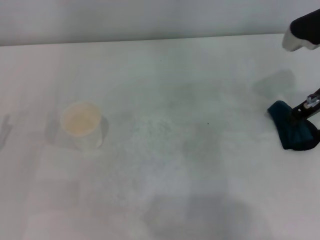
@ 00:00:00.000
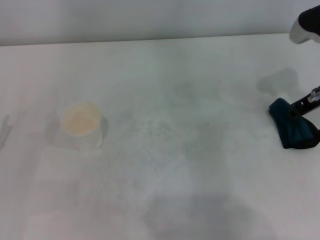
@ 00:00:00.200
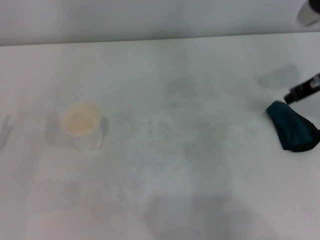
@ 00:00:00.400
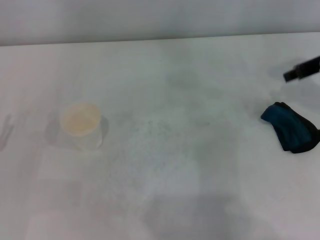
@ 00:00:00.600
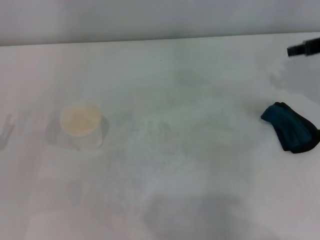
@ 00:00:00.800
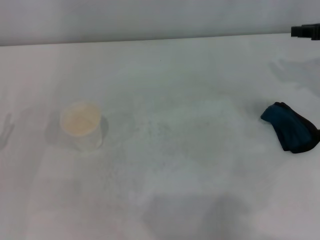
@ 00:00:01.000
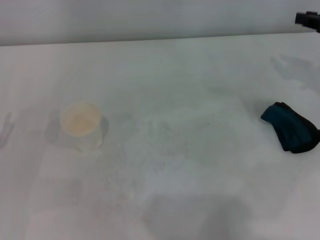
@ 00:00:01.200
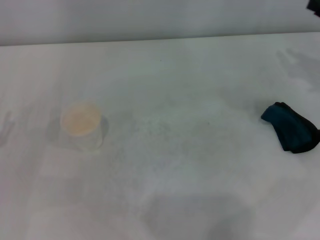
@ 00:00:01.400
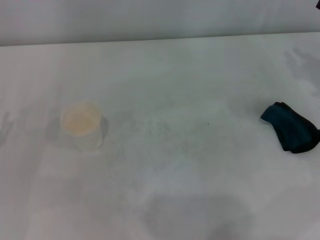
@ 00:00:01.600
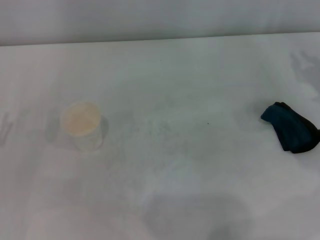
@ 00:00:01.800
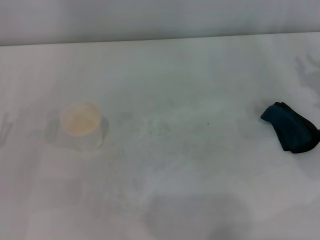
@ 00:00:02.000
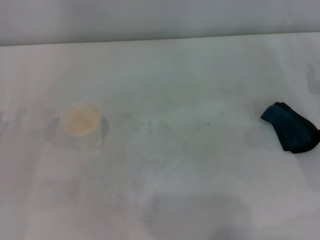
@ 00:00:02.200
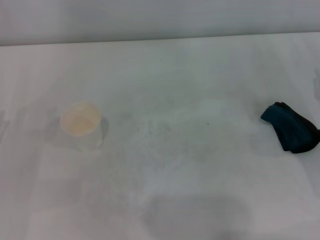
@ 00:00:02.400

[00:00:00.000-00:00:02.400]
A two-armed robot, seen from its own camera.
00:00:00.000 to 00:00:01.200: The right gripper shifts roughly 10 cm to the right, and opens.

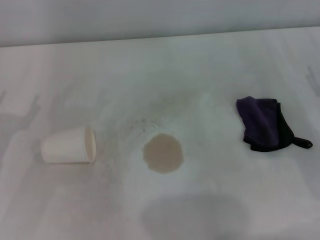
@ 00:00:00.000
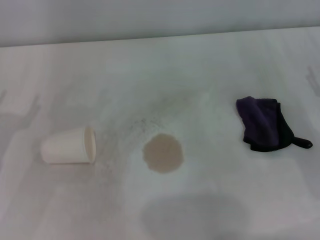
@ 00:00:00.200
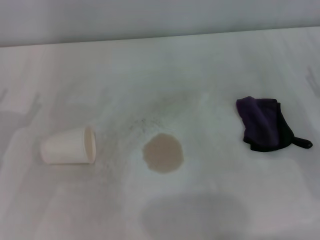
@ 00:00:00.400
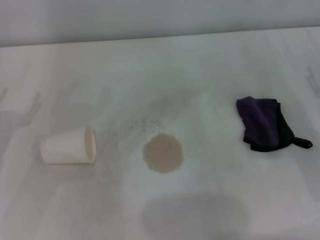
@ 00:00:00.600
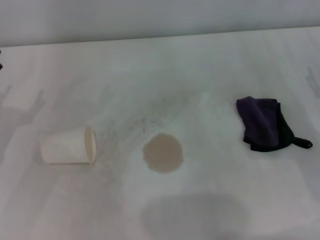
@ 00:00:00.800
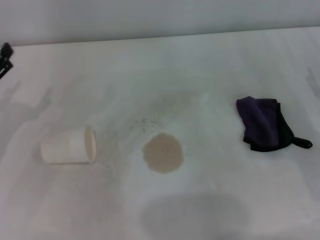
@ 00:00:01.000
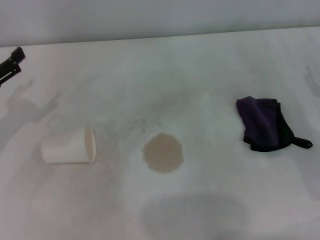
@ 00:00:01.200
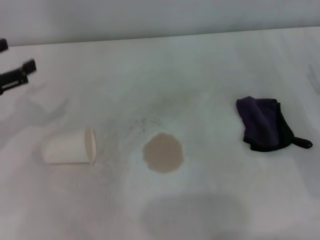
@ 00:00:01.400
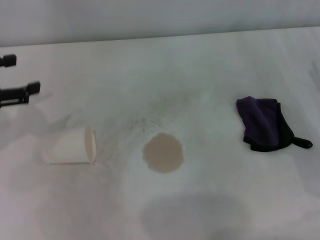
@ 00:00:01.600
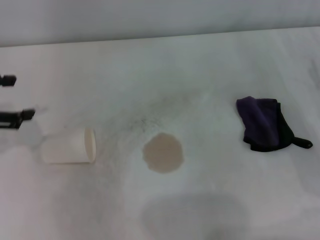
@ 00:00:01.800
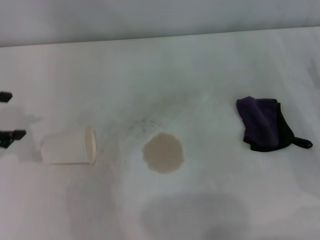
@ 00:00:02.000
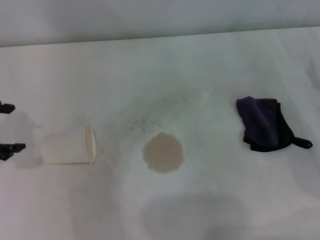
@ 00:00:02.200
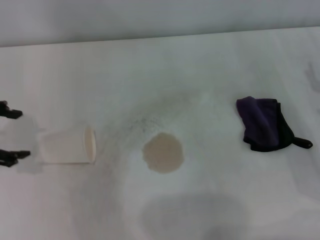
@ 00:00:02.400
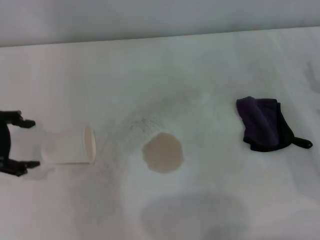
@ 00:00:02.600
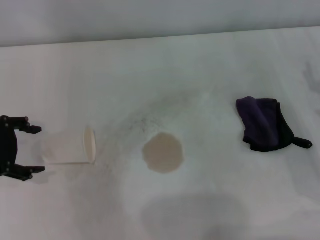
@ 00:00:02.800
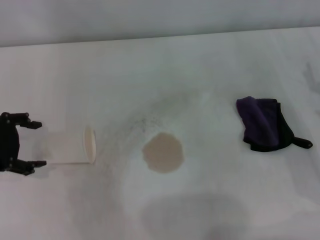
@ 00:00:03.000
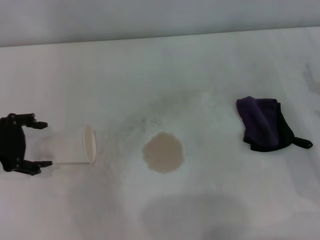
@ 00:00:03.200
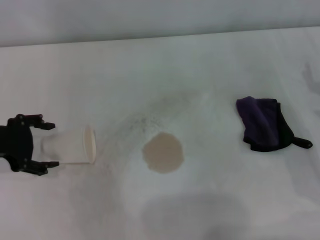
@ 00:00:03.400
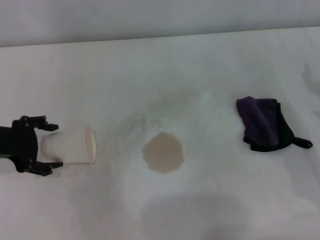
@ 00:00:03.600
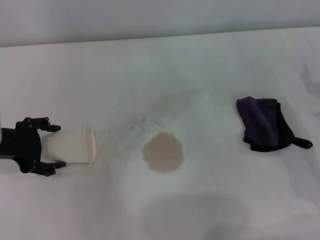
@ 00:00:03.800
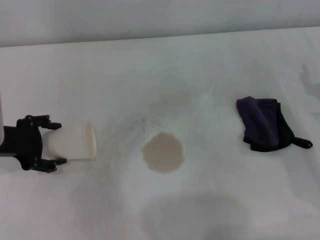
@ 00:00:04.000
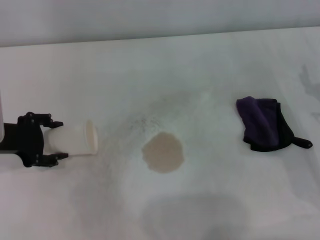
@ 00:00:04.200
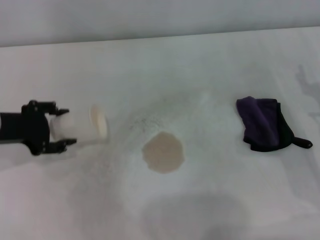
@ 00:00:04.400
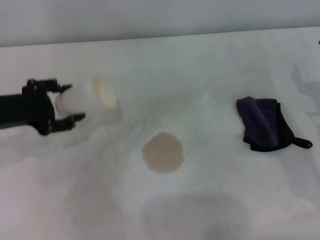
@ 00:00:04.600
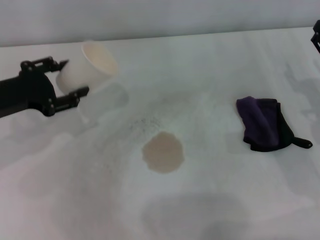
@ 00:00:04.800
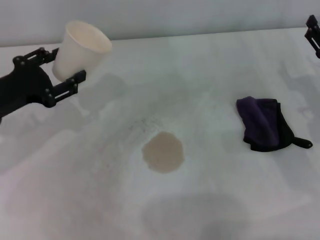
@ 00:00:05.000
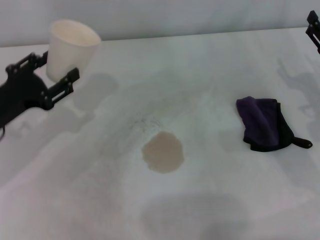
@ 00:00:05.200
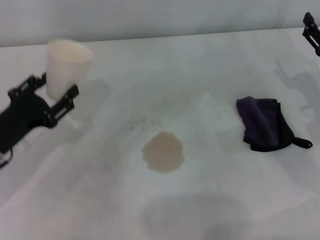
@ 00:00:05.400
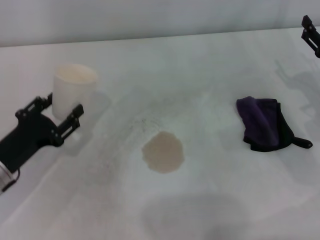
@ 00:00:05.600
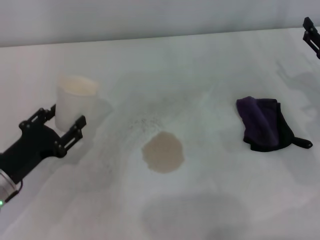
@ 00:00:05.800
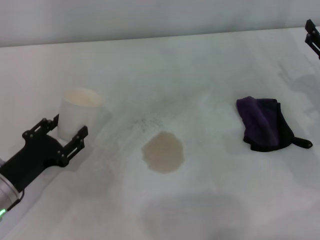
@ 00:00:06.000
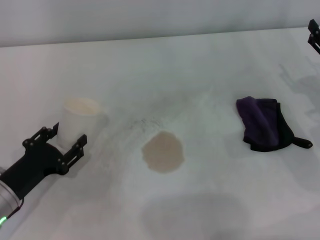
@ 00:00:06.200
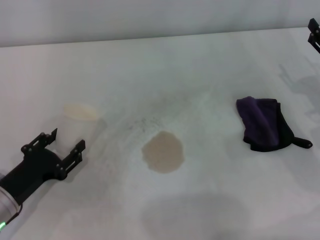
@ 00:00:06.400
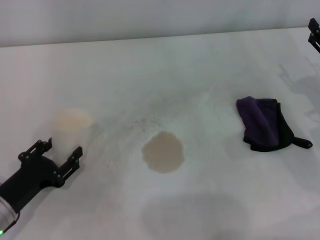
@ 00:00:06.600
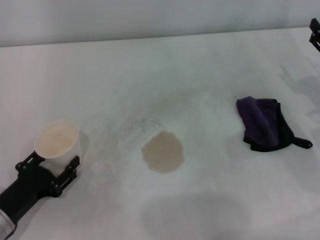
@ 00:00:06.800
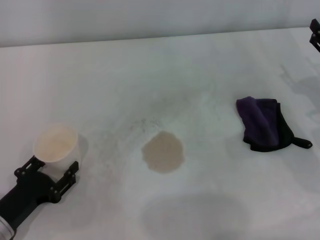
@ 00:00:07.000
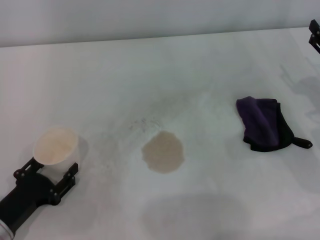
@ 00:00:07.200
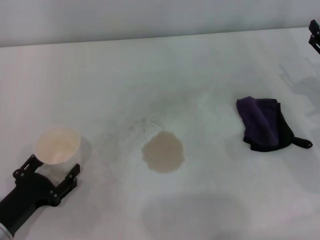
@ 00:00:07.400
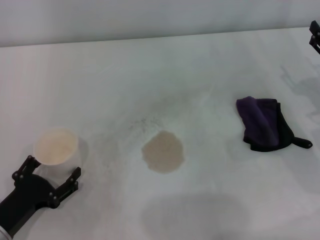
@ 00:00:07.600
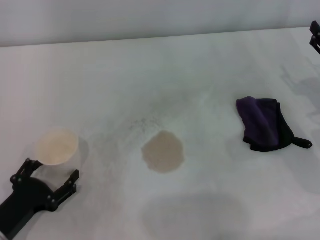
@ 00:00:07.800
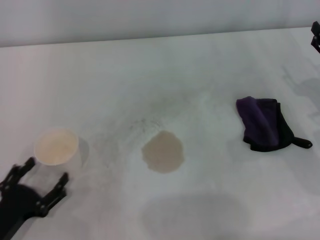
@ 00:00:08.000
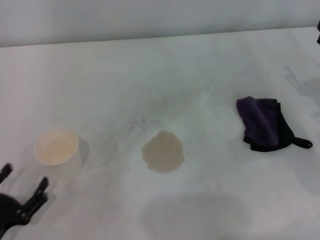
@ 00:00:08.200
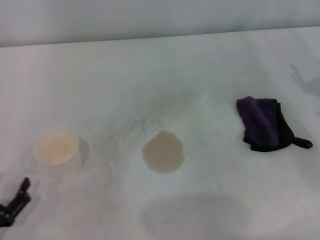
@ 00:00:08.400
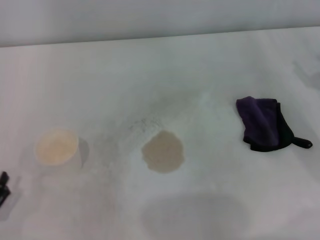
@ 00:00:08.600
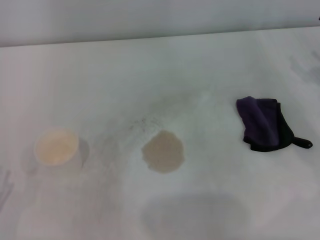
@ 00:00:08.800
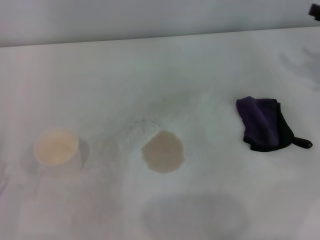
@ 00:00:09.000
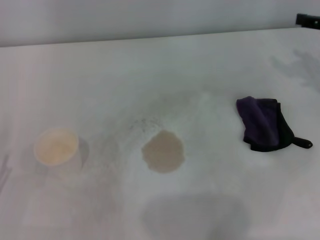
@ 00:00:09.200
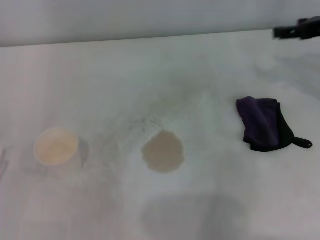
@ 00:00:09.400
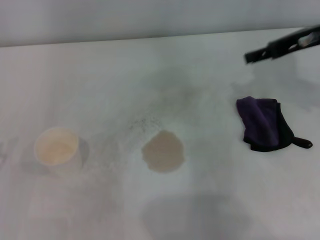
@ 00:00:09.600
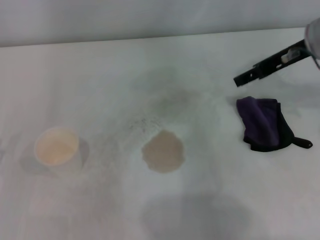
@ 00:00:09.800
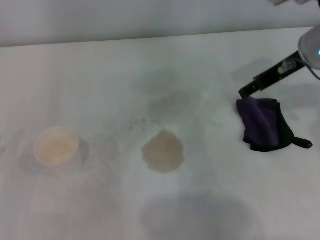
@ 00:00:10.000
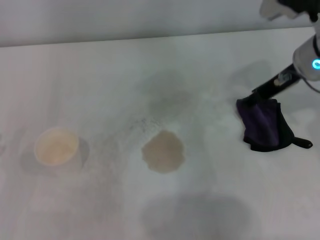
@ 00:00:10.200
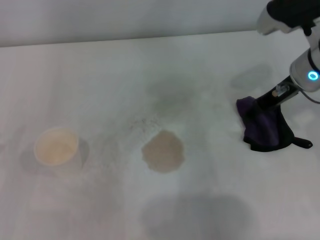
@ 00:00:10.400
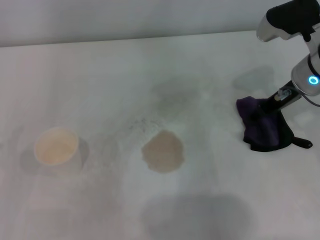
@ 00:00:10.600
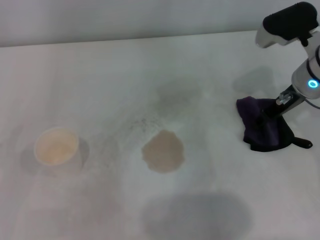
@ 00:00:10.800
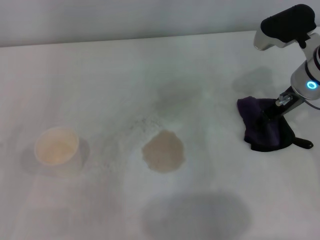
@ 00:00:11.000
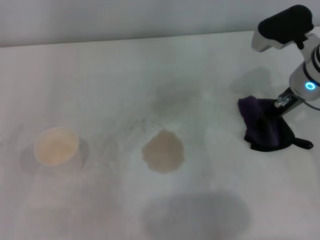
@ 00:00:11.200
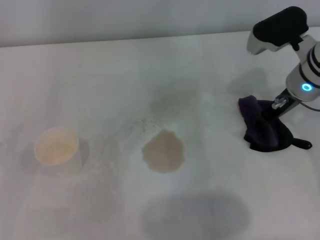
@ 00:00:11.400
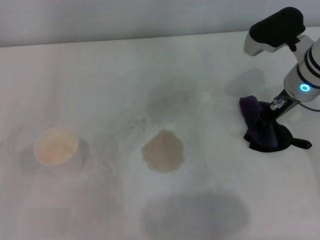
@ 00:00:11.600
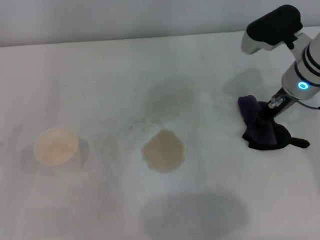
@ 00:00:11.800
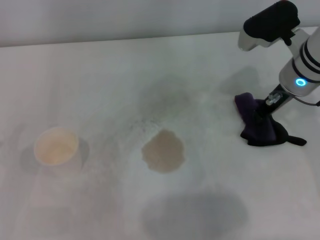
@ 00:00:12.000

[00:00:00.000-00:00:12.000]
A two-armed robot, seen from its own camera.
Step, 00:00:00.000 to 00:00:04.000: Grasp the paper cup with the left gripper.
Step, 00:00:04.200 to 00:00:07.600: Stand the paper cup upright with the left gripper.
Step, 00:00:07.800 to 00:00:11.600: Grasp the rag with the right gripper.
00:00:00.000 to 00:00:01.600: The left gripper shifts roughly 10 cm upward and forward.
00:00:03.000 to 00:00:04.400: The left gripper closes up.
00:00:04.400 to 00:00:06.000: The left gripper is displaced downward and backward by roughly 15 cm.
00:00:06.000 to 00:00:07.600: The left gripper is displaced backward by some 5 cm, and opens up.
00:00:07.600 to 00:00:09.000: The right gripper is displaced upward and forward by roughly 10 cm; the left gripper travels to the left by approximately 5 cm, and opens its fingers.
00:00:09.000 to 00:00:10.400: The right gripper moves to the left, approximately 15 cm.
00:00:10.400 to 00:00:12.000: The right gripper closes.

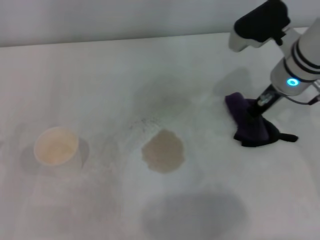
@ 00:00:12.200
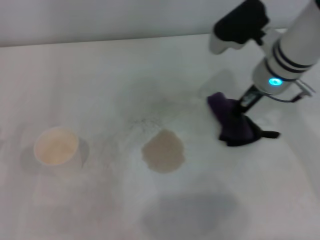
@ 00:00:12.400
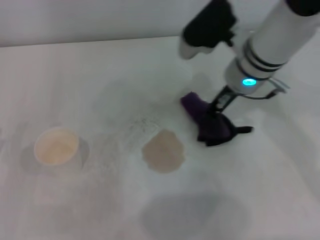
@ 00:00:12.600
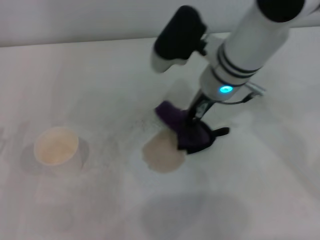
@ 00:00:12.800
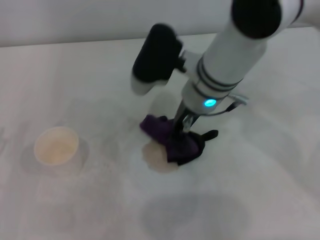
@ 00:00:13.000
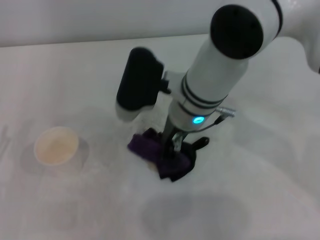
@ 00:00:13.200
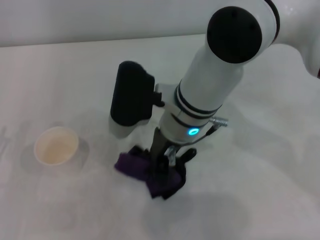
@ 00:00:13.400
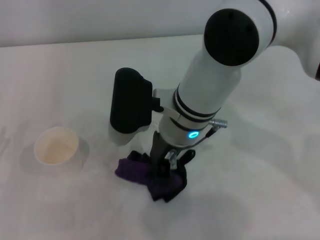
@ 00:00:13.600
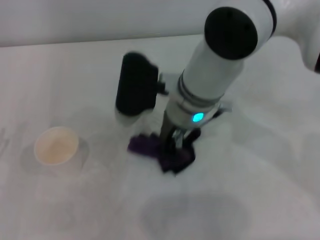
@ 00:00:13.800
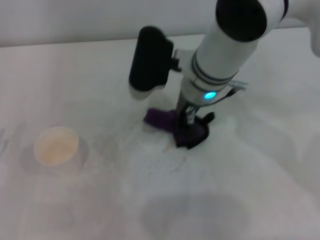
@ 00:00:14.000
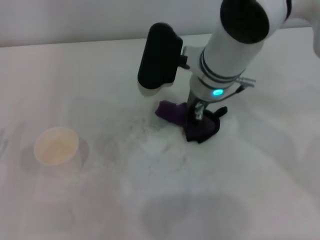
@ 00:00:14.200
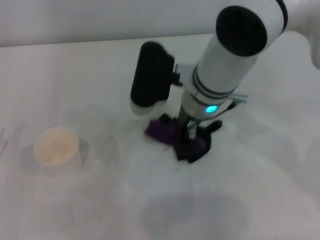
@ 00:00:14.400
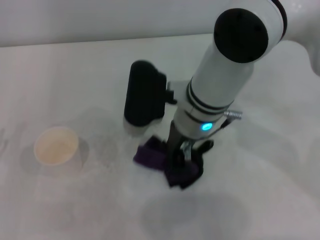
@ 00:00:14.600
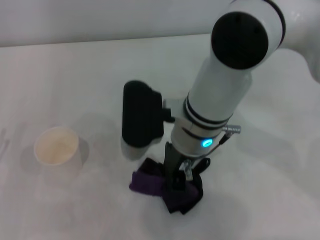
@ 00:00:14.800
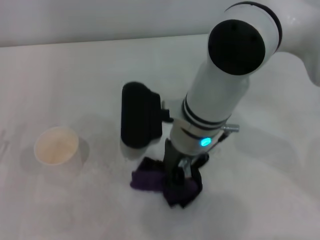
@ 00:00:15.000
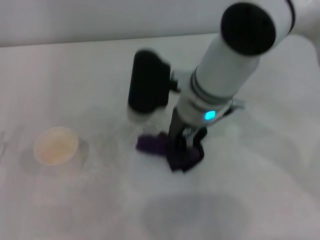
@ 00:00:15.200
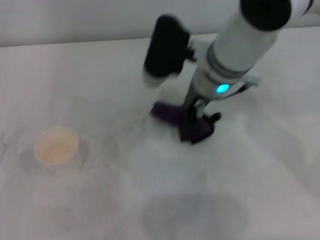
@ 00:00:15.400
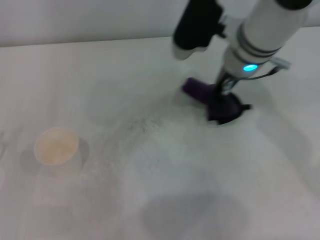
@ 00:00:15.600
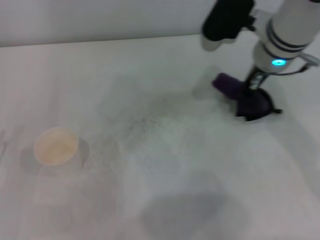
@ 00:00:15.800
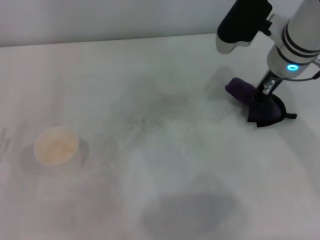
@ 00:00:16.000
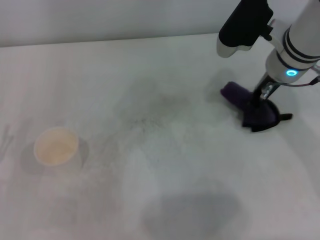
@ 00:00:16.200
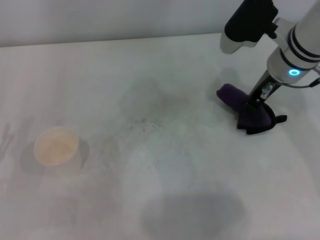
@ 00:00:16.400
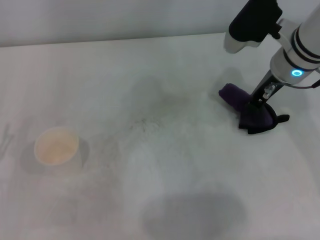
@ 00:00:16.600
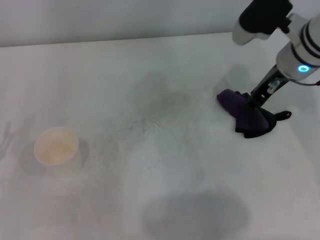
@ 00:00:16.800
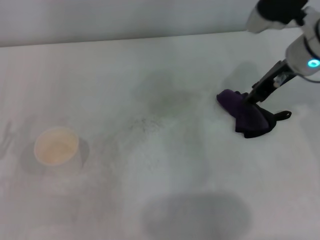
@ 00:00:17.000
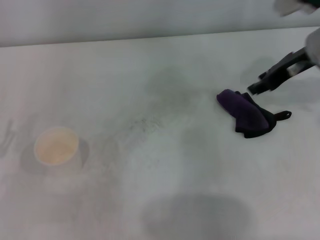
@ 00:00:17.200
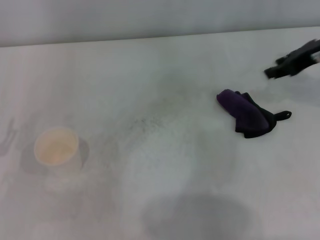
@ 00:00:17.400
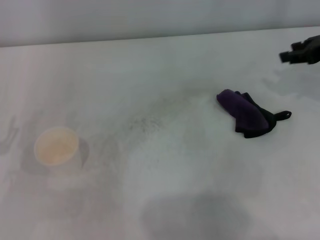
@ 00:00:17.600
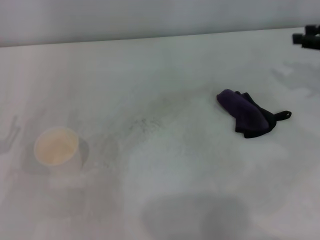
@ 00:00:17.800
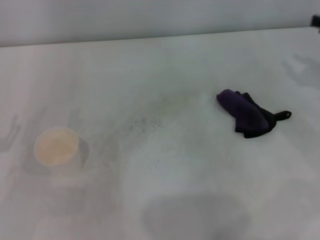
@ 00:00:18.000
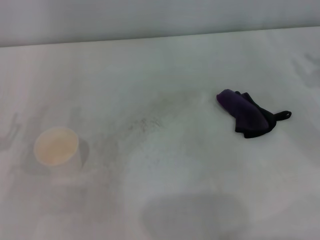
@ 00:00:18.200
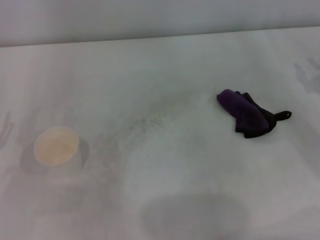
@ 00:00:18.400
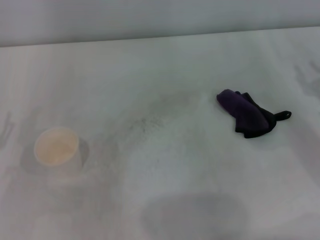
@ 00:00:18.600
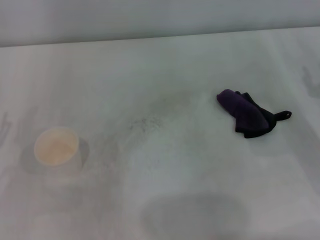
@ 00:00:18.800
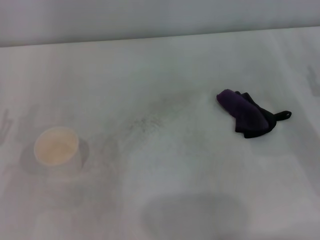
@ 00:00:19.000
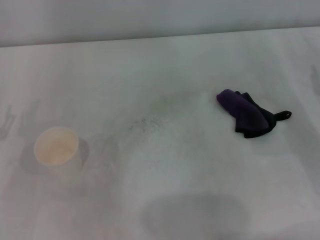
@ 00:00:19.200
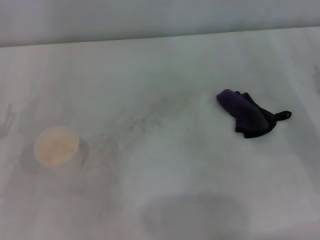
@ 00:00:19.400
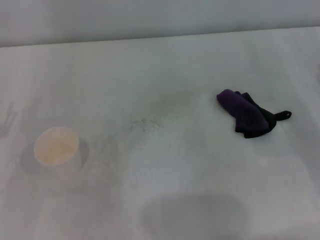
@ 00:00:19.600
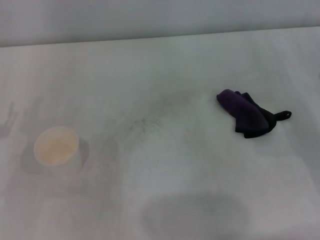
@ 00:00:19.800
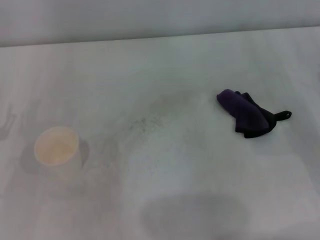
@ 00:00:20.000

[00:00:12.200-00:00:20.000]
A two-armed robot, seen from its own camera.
Step, 00:00:12.200 to 00:00:15.800: Wipe the stains off the table with the right gripper.
Step, 00:00:16.000 to 00:00:16.600: Place the rag on the table with the right gripper.
00:00:12.200 to 00:00:13.800: The right gripper moves to the left, approximately 15 cm.
00:00:13.800 to 00:00:15.400: The right gripper changes place by some 5 cm.
00:00:15.400 to 00:00:16.800: The right gripper travels to the right by roughly 10 cm.
00:00:16.800 to 00:00:18.400: The right gripper shifts approximately 20 cm to the right and backward, and opens up.
